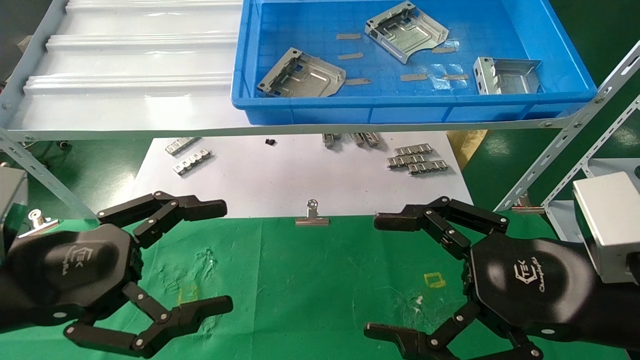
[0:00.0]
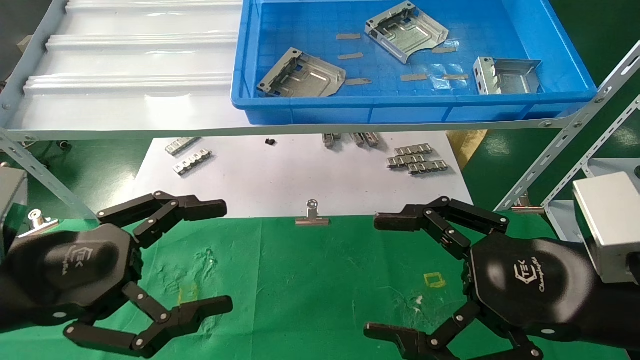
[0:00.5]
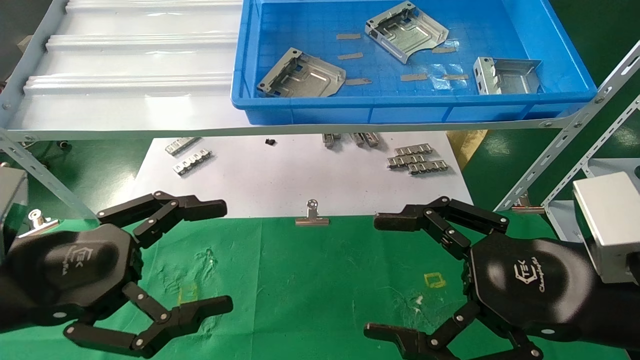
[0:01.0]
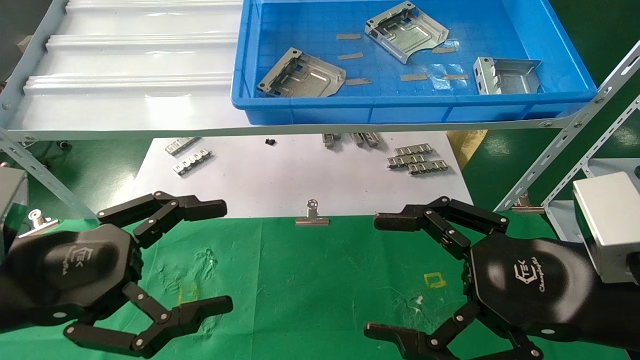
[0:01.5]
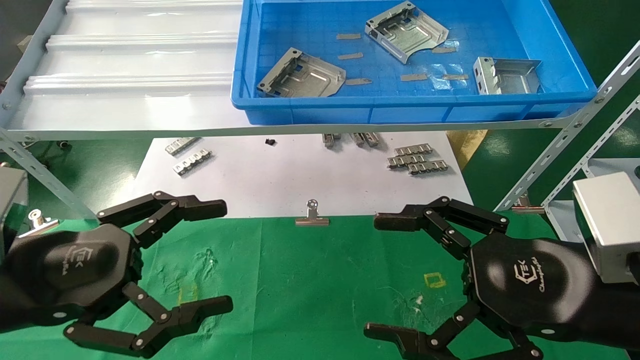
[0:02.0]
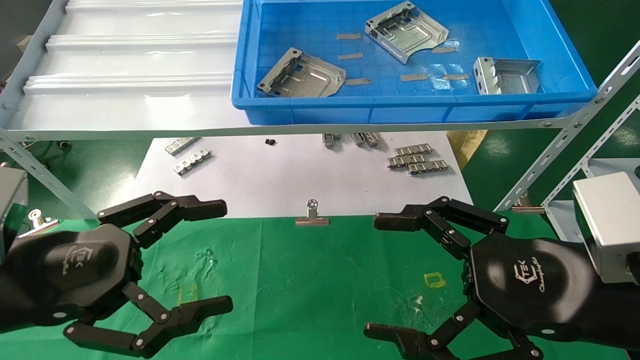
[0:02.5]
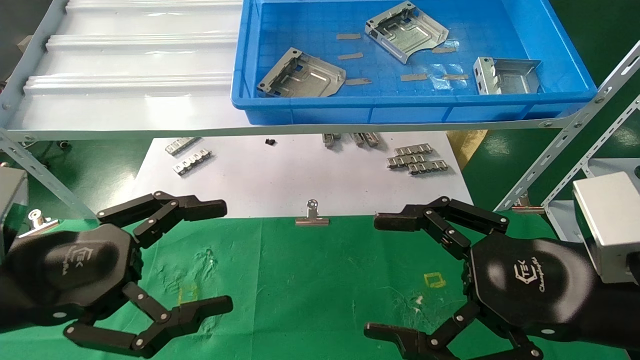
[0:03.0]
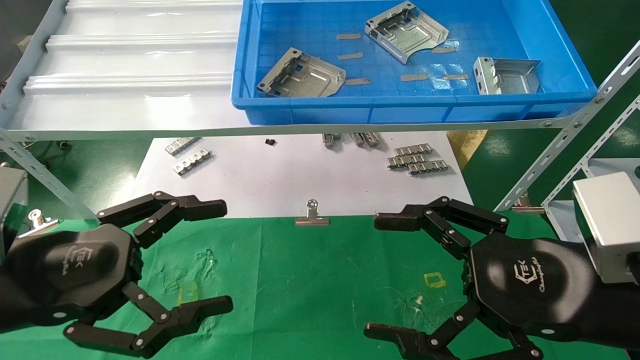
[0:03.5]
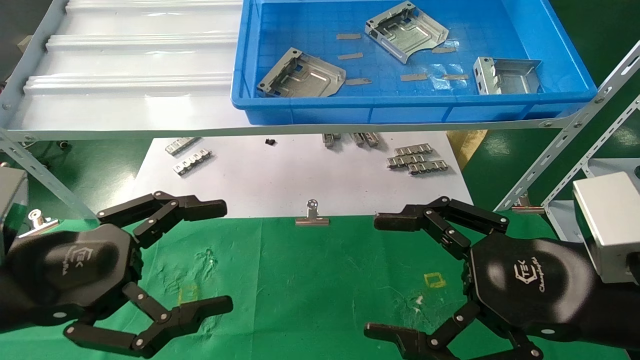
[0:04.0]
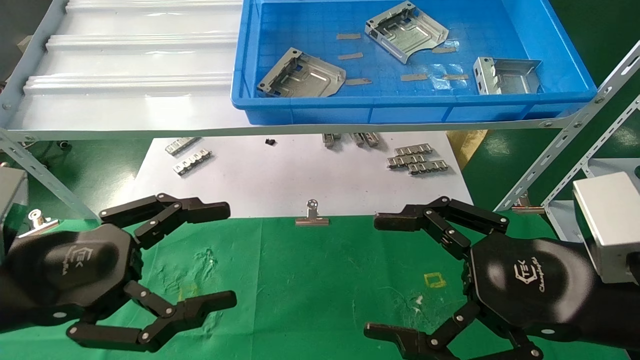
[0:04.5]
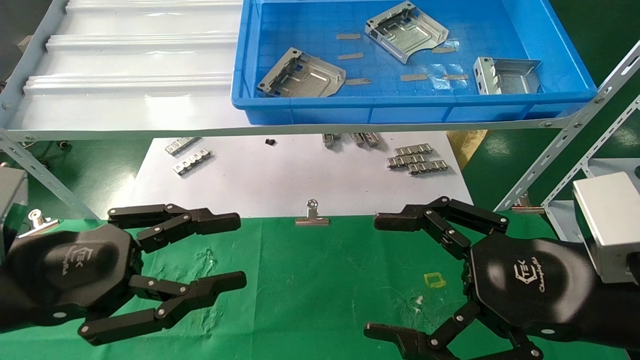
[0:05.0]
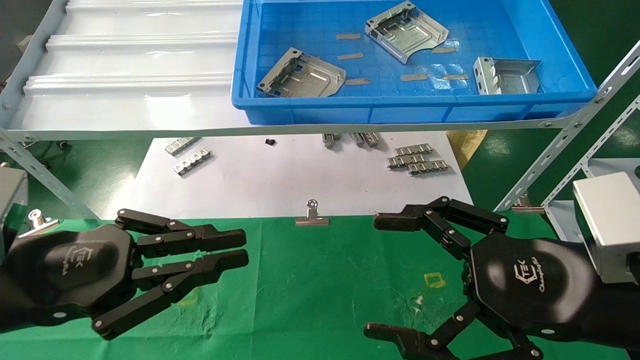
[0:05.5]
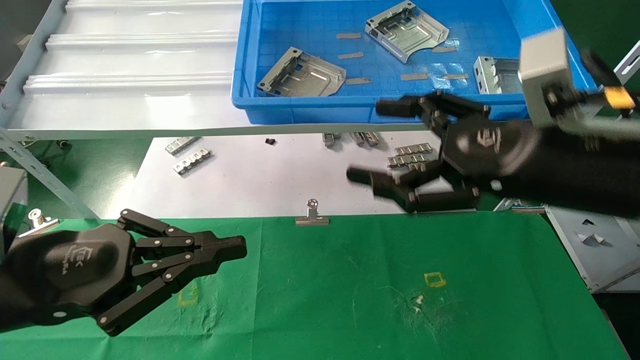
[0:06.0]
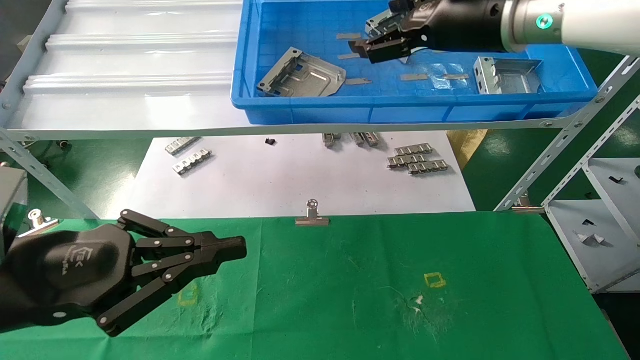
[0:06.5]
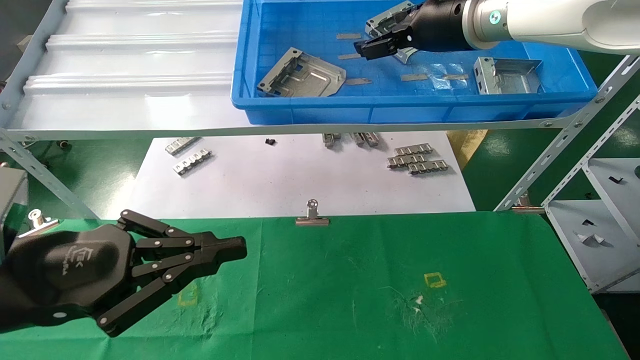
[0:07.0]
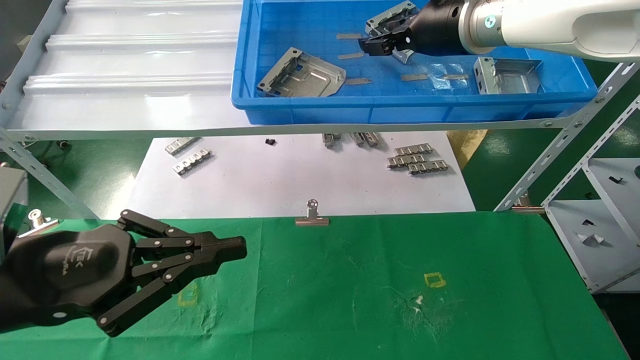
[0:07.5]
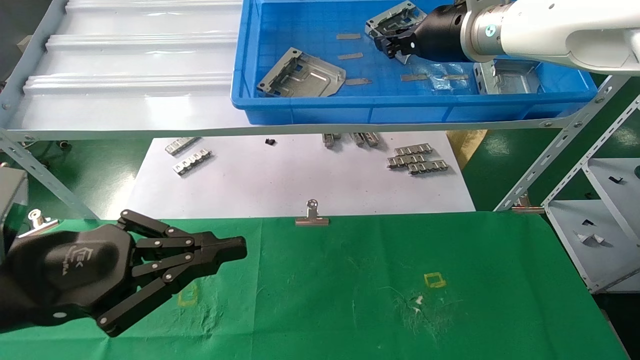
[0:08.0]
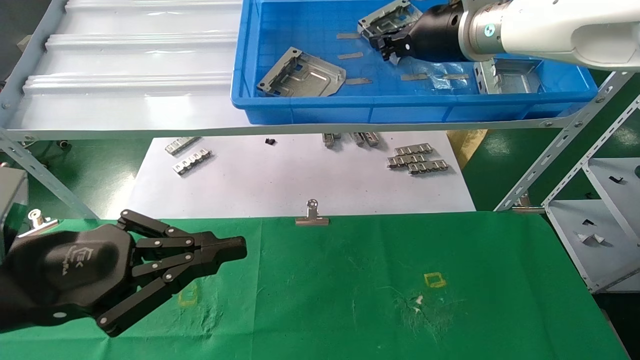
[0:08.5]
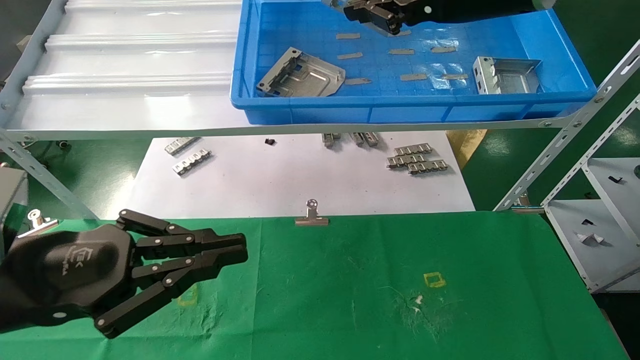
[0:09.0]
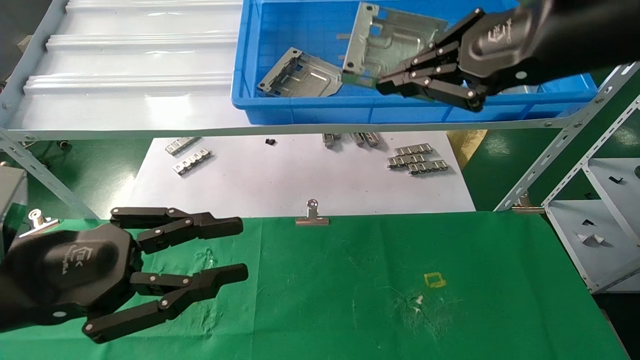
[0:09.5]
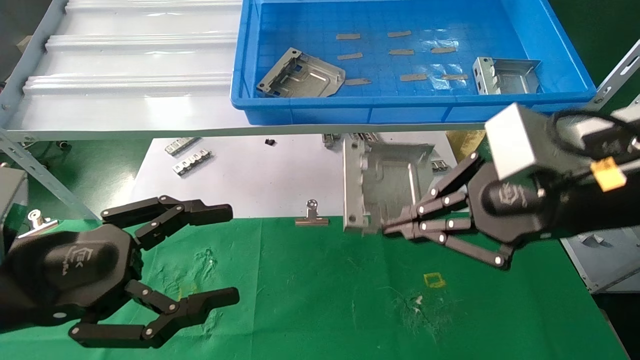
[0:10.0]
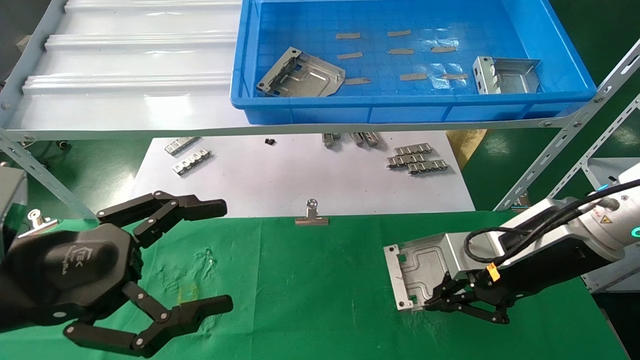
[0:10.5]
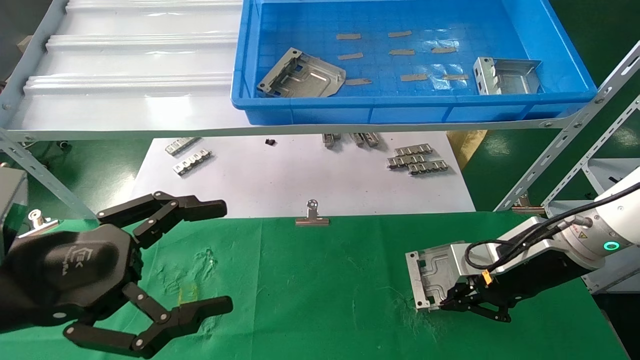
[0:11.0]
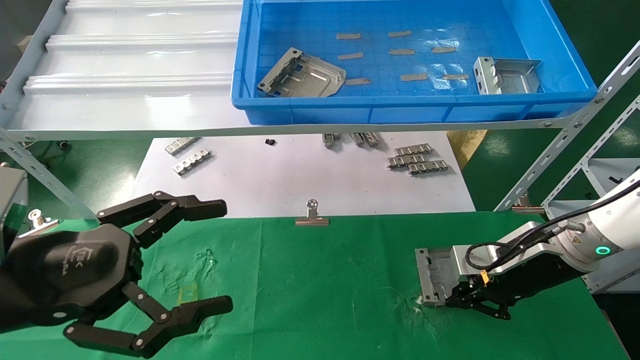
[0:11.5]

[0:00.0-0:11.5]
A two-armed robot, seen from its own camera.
Task of the whole recording: use the mechanical arm to pick up the parts and place them on the table.
Step, 0:04.5 to 0:09.0: Pick up the hard drive bracket from the feeding area.
0:00.0 to 0:04.0: Both grippers stay put.
0:04.0 to 0:06.0: The right gripper moves upward and forward, some 15 cm. The left gripper closes.
0:06.0 to 0:07.5: The right gripper travels forward and upward by approximately 20 cm.
0:07.5 to 0:09.5: The right gripper heads backward, covering approximately 20 cm, and closes up.
0:09.5 to 0:11.5: The left gripper opens. The right gripper moves downward and forward, about 30 cm.

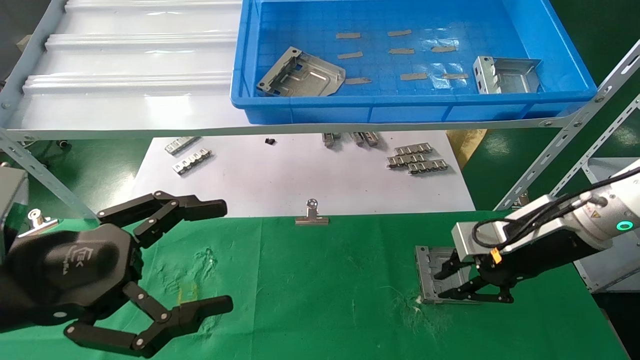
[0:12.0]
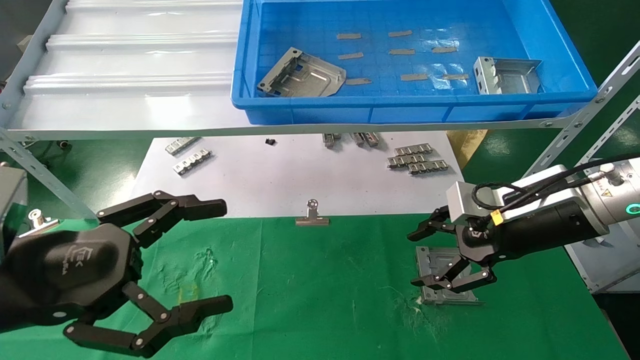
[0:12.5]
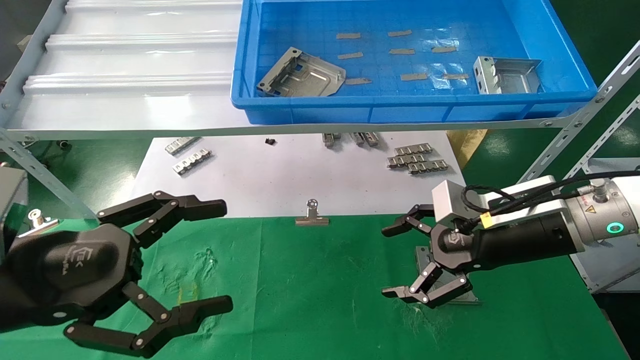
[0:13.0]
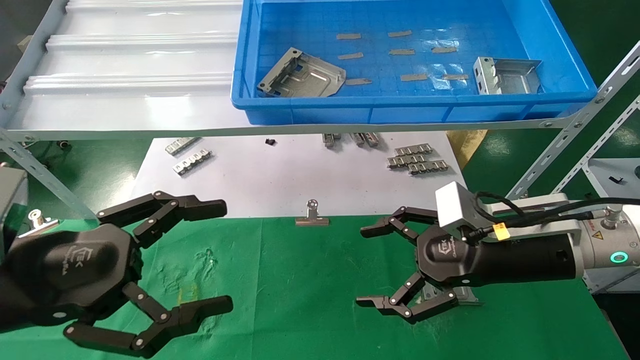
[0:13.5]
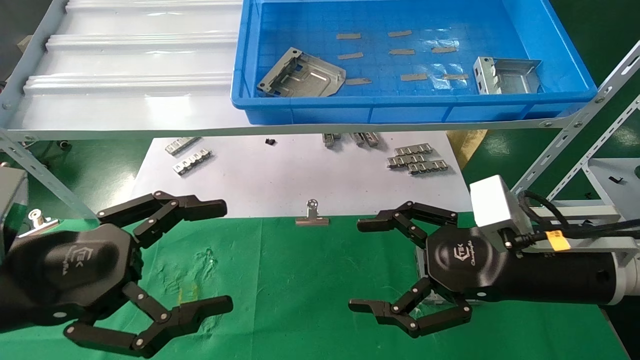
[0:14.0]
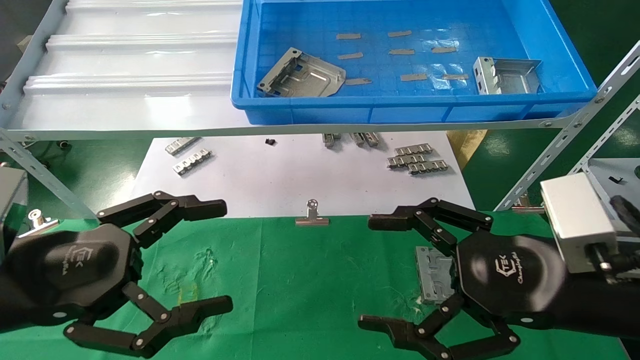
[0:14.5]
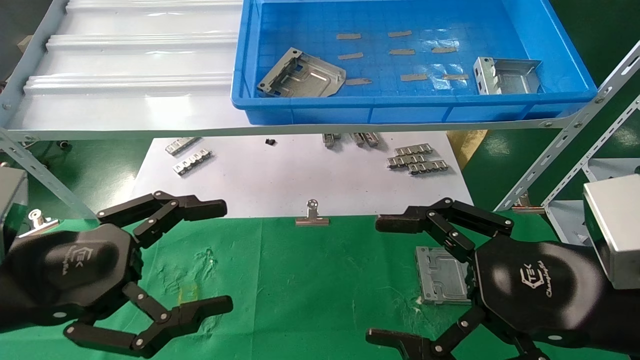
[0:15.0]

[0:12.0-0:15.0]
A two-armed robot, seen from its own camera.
Task of the whole recording: use the mechanical arm to pick up the parts and place them on the table.
0:12.0 to 0:13.5: The right gripper moves to the left, about 5 cm, and opens its fingers.
0:13.5 to 0:15.0: The right gripper shifts roughly 10 cm backward.
